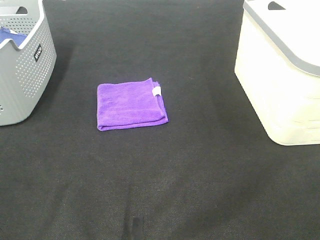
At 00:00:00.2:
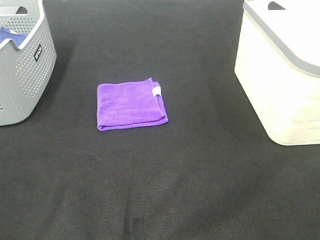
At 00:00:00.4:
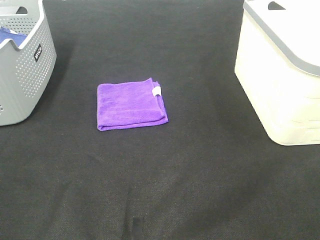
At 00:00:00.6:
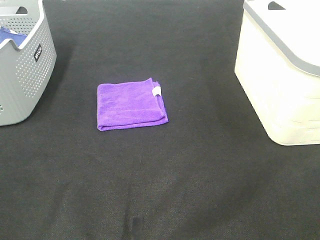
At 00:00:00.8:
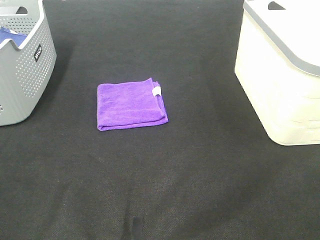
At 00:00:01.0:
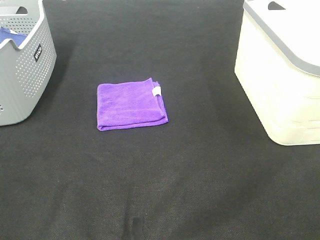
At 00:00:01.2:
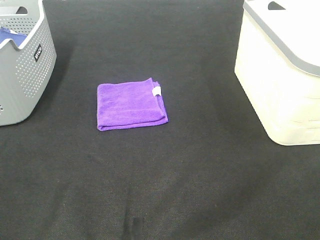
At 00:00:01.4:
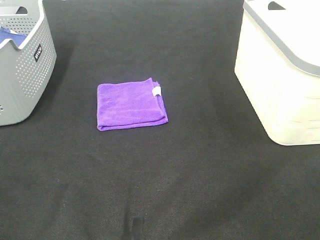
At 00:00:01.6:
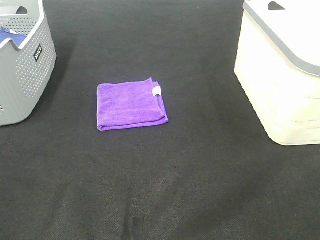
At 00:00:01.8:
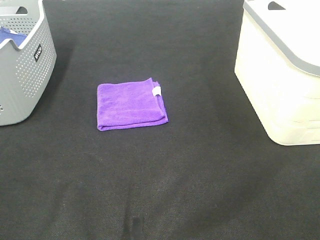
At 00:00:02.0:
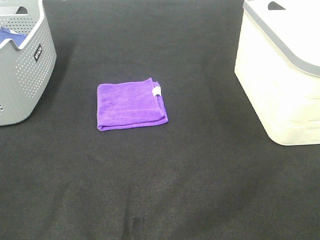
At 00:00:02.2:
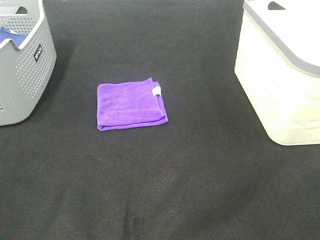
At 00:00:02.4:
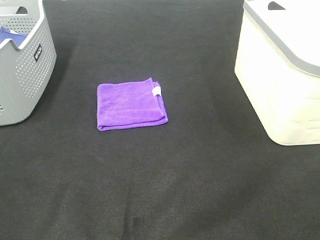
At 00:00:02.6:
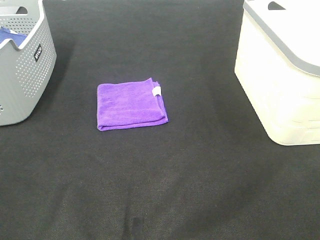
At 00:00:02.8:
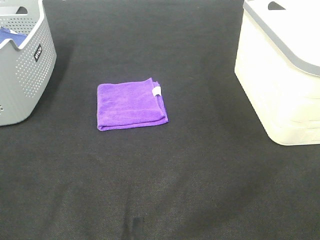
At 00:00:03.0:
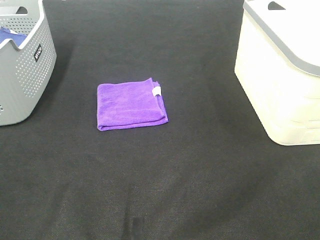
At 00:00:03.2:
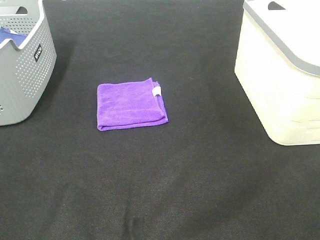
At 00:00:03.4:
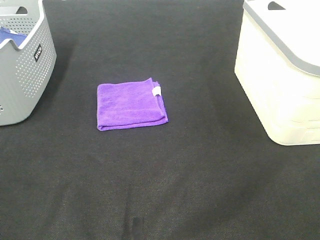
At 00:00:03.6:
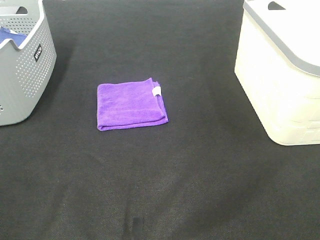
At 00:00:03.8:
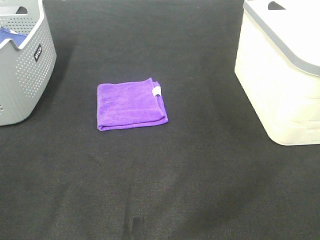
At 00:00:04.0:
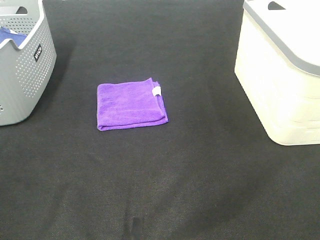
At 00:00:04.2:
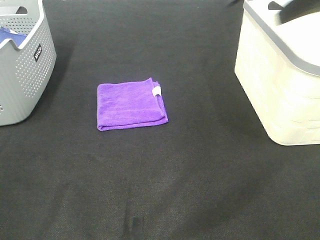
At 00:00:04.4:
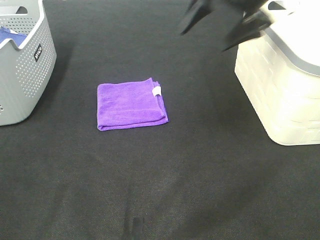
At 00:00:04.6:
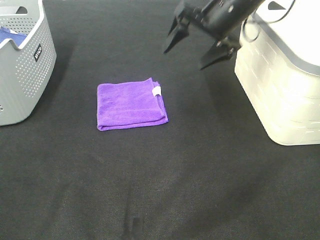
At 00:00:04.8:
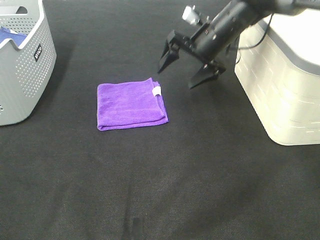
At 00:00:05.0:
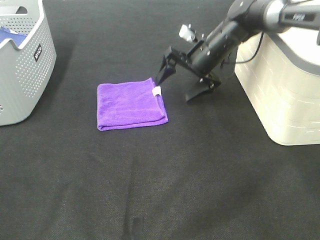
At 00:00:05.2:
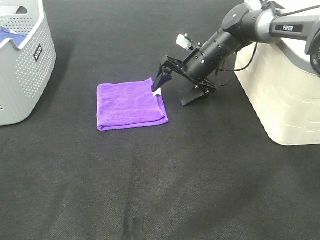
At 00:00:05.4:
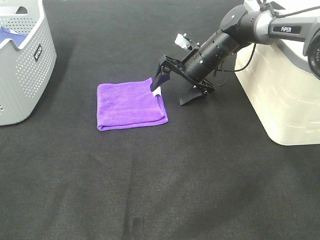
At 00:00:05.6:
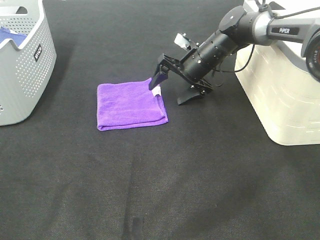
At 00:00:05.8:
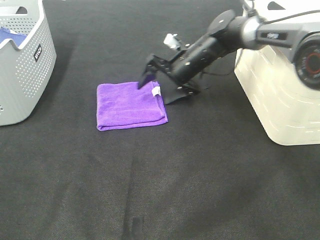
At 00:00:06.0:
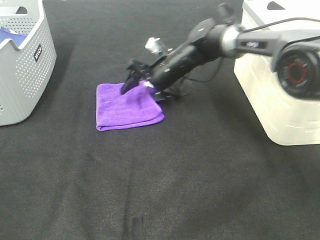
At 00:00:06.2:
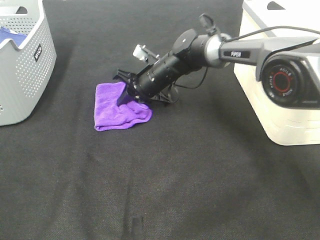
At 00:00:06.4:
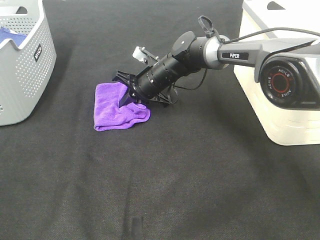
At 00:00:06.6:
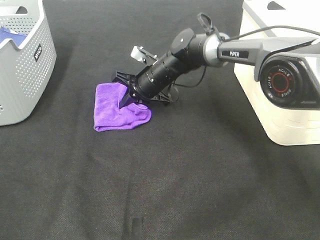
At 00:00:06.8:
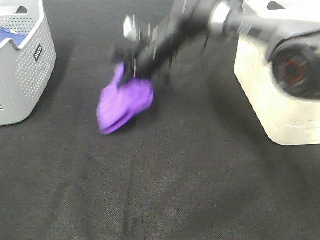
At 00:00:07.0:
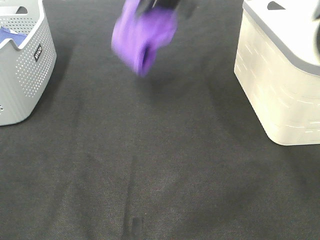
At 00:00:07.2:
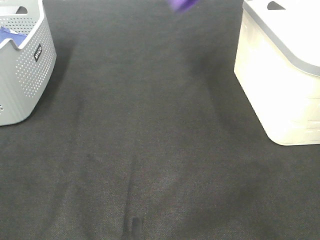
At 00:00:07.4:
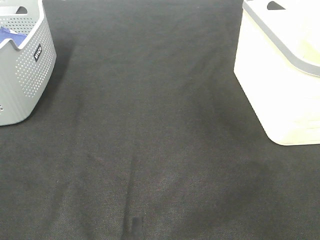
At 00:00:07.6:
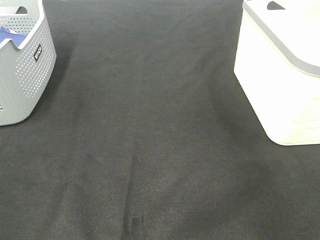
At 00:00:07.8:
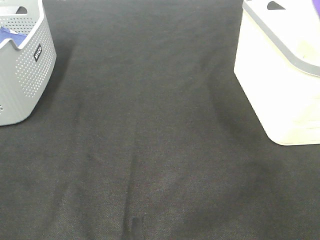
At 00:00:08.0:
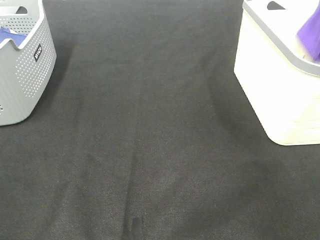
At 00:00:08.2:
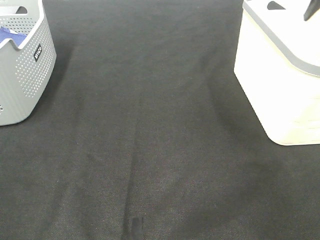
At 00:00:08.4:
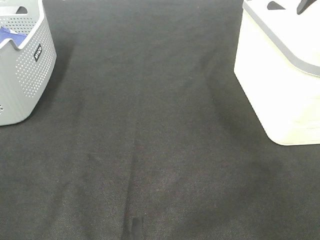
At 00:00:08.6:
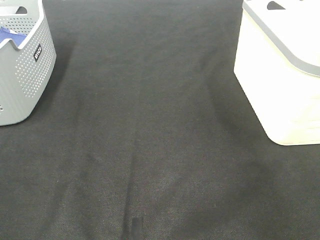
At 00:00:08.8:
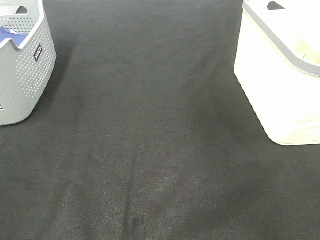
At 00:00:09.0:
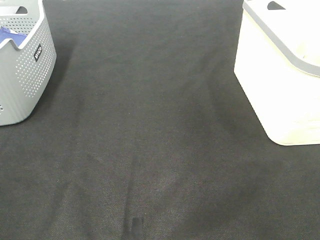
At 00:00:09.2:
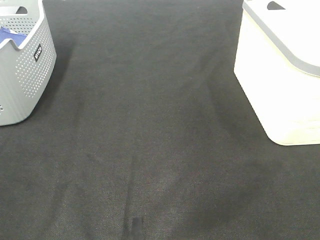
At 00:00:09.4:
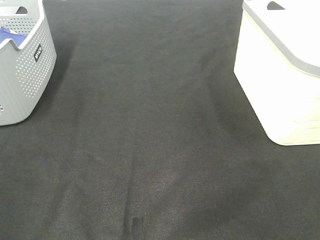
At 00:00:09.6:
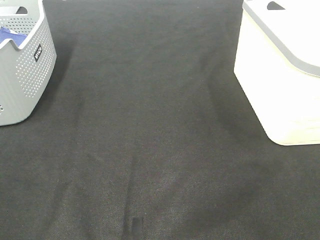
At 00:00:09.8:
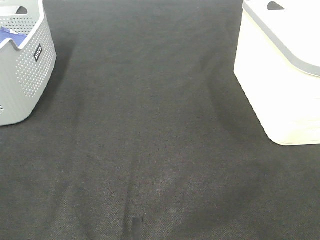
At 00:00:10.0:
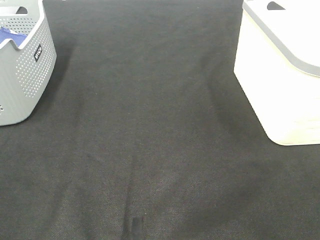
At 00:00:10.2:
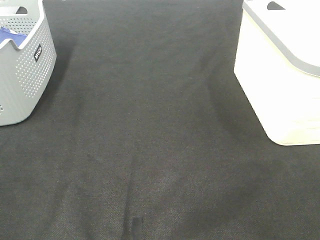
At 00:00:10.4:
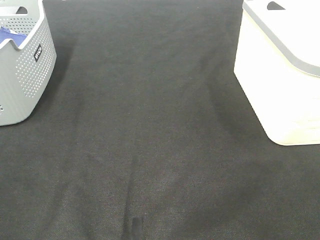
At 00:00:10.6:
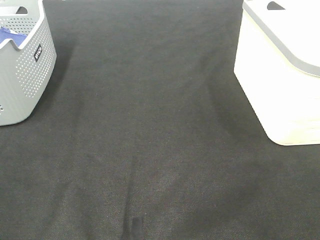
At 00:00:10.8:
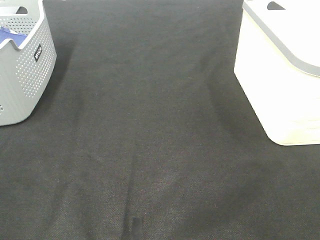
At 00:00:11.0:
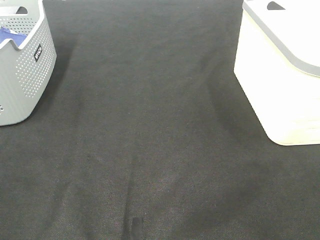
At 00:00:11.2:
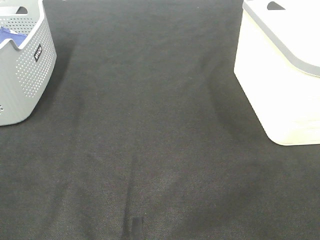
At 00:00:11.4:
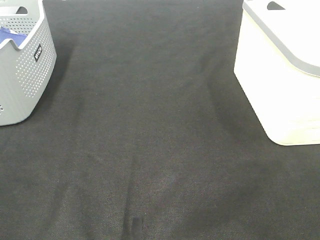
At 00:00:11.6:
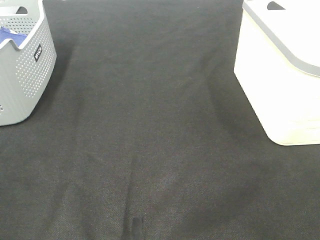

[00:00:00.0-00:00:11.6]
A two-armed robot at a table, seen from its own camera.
Step, 00:00:00.0 to 00:00:06.2: Right hand: grab the folded purple towel.
Step, 00:00:06.4 to 00:00:08.0: Right hand: place the purple towel in right basket.
00:00:00.0 to 00:00:02.8: Neither gripper changes place.
00:00:02.8 to 00:00:04.4: The right gripper is displaced forward by approximately 40 cm.
00:00:04.4 to 00:00:05.8: The right gripper goes approximately 20 cm downward and to the left.
00:00:05.8 to 00:00:07.2: The right gripper is displaced upward by some 35 cm, and closes.
00:00:07.2 to 00:00:08.8: The right gripper is displaced to the right by some 10 cm, and opens.

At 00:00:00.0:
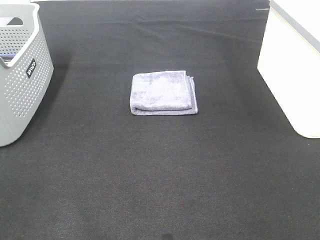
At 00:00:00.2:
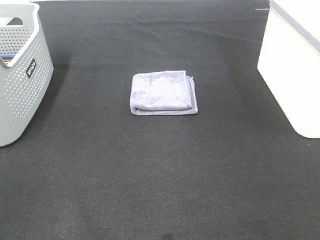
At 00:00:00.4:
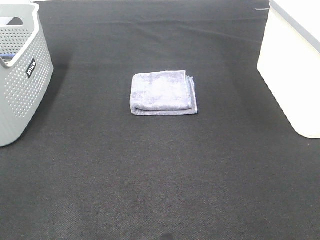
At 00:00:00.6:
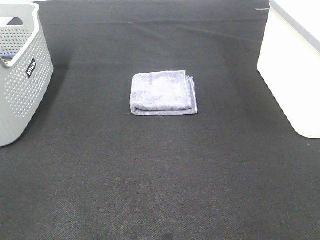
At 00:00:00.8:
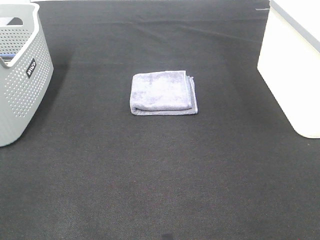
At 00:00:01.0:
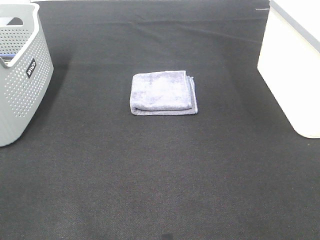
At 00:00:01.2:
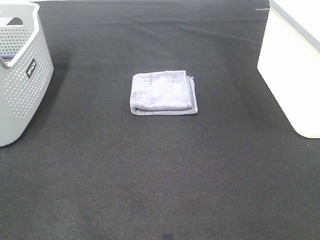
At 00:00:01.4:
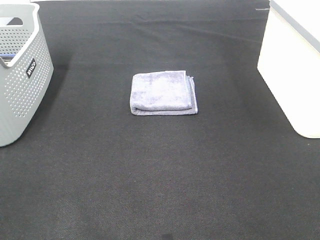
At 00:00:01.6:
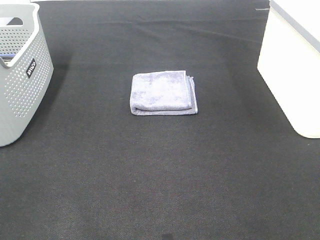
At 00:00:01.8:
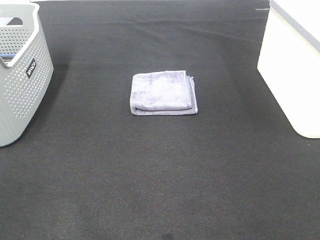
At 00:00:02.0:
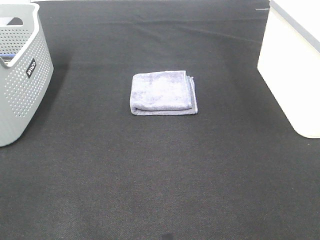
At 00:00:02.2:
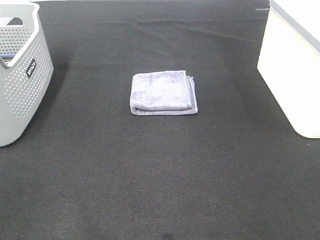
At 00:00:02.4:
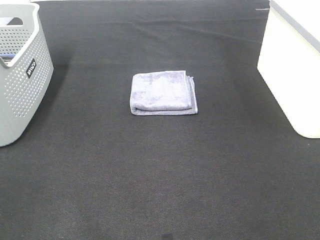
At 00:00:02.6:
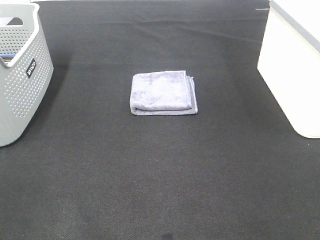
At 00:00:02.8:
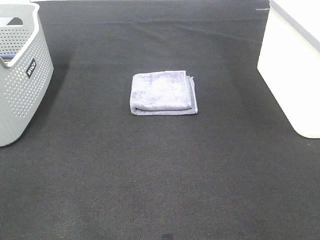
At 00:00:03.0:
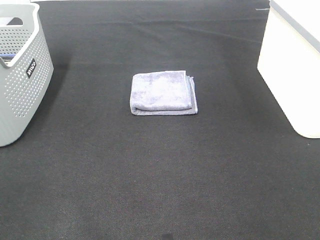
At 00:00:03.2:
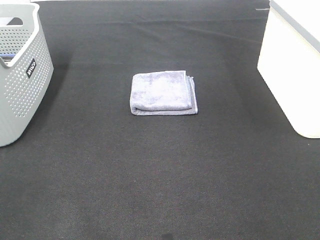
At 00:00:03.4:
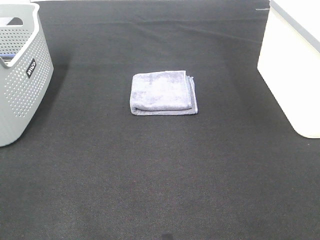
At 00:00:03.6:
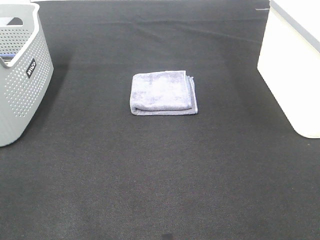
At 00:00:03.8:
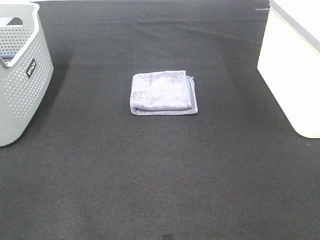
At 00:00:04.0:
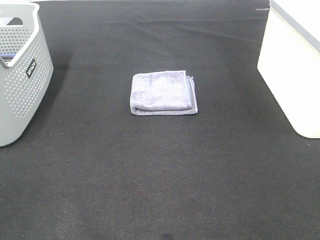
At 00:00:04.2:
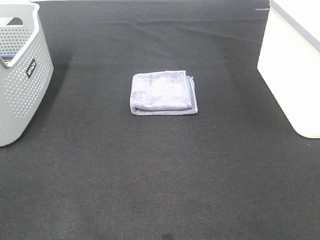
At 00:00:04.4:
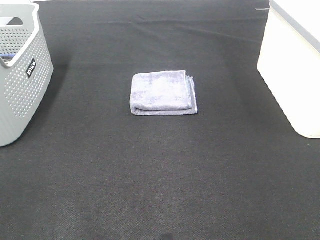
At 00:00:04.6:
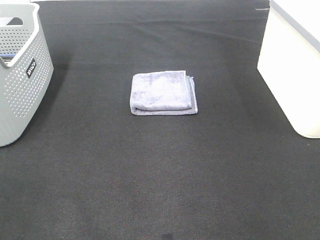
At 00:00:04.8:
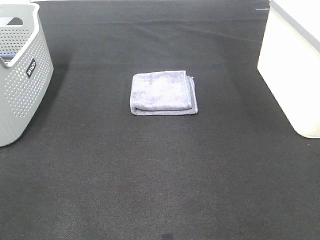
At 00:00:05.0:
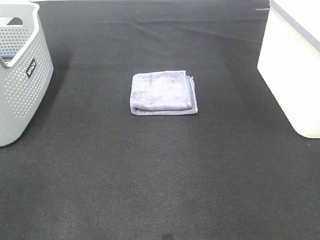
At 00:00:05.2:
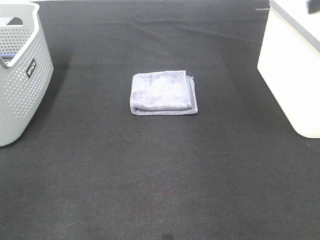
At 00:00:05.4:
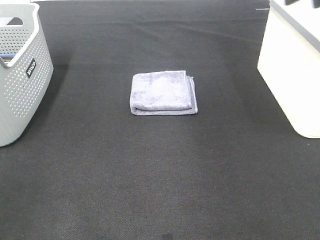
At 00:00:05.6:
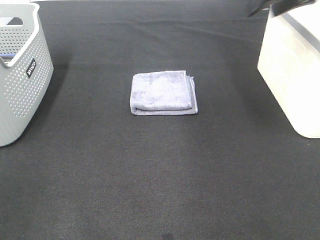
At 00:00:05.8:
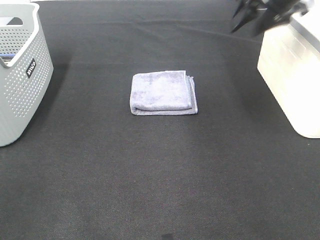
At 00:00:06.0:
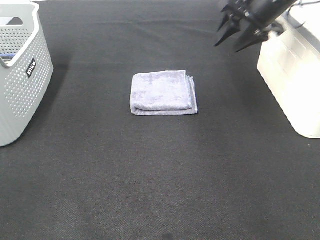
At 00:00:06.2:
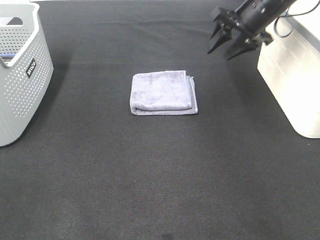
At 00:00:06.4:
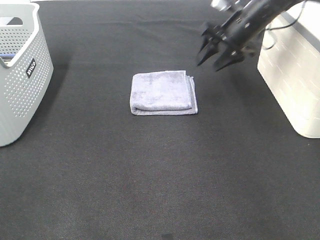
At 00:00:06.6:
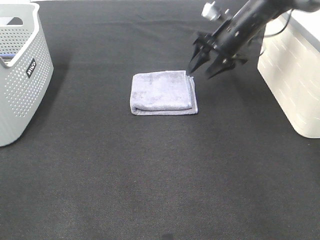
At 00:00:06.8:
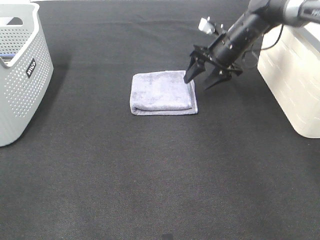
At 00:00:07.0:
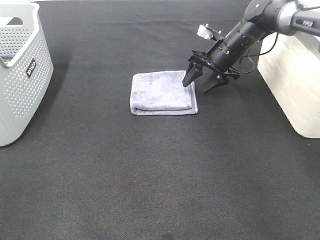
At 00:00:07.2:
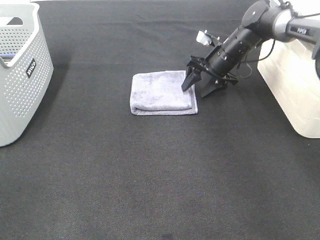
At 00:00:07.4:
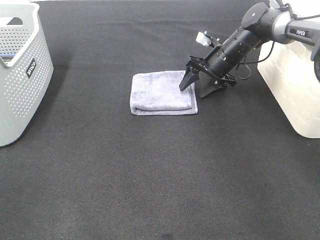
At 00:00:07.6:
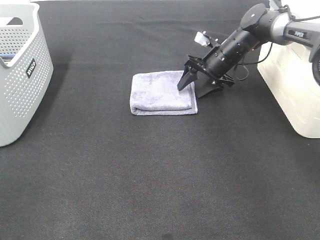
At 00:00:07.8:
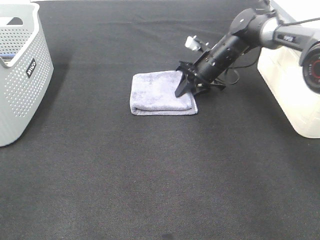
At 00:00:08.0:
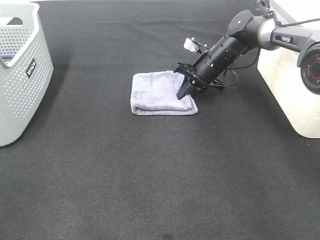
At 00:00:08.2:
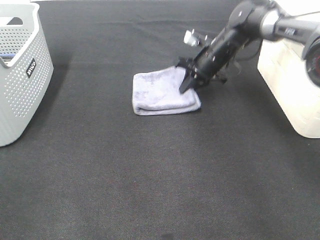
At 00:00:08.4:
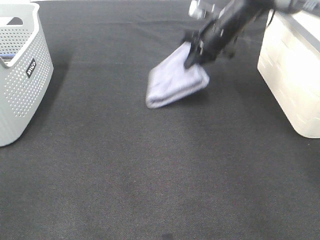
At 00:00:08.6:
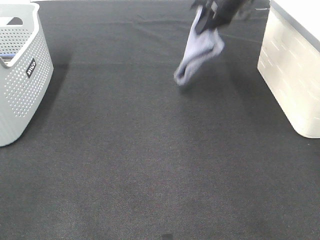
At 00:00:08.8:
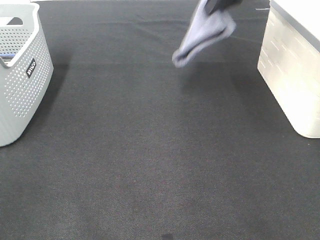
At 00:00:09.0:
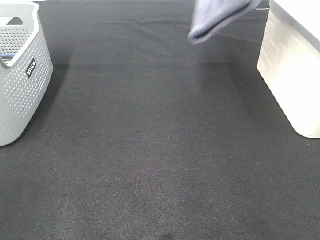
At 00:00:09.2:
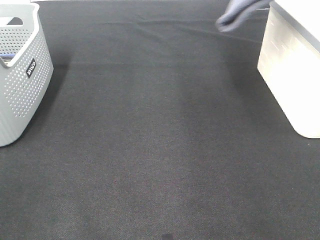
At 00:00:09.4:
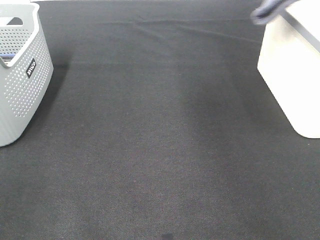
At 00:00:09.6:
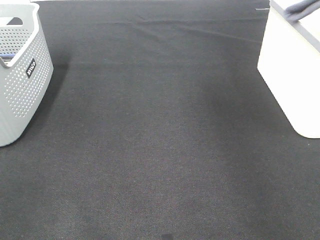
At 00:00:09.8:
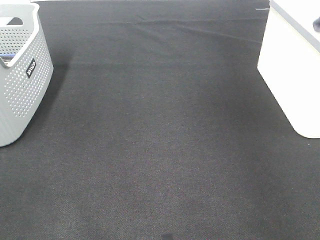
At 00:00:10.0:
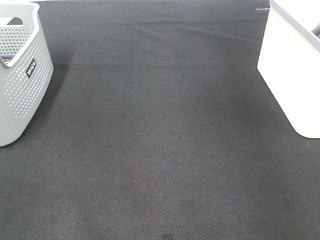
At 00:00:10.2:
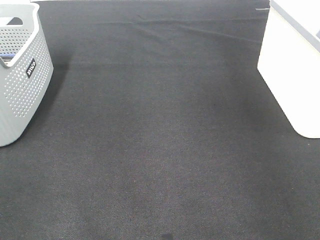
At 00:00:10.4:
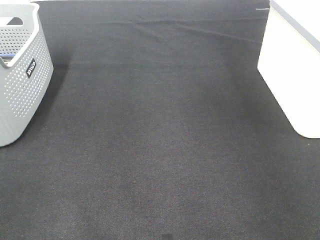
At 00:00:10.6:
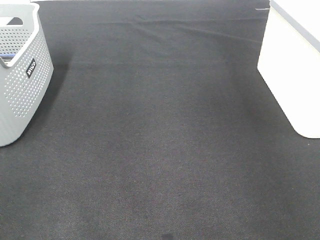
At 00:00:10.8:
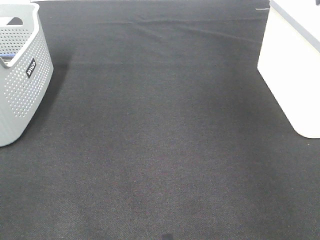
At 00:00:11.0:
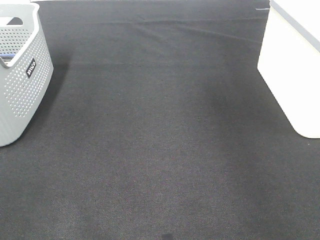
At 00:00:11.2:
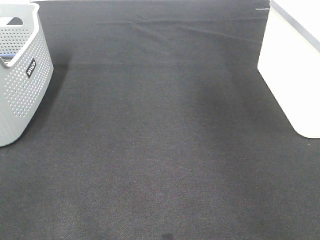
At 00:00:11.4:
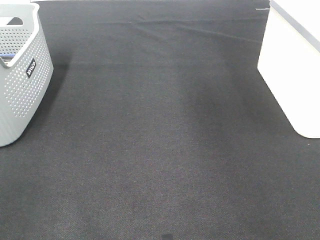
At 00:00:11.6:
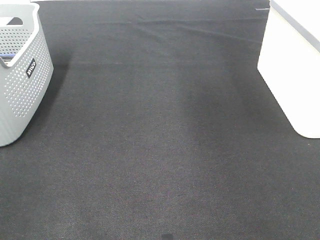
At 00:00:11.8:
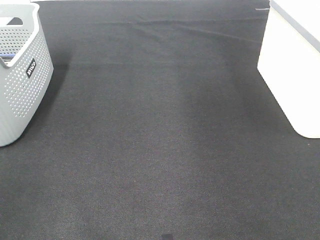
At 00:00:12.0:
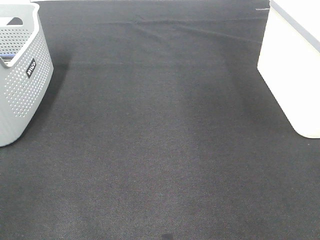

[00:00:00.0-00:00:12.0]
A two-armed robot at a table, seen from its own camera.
Step, 00:00:00.0 to 00:00:08.0: Right hand: grab the folded grey towel.
Step, 00:00:08.2 to 00:00:10.4: Right hand: place the grey towel in right basket.
00:00:00.0 to 00:00:03.0: Both grippers stay put.
00:00:04.4 to 00:00:06.0: The right gripper shifts some 40 cm forward.
00:00:06.0 to 00:00:07.6: The right gripper shifts some 15 cm downward.
00:00:07.6 to 00:00:09.0: The right gripper is displaced upward by approximately 30 cm, and closes.
00:00:09.0 to 00:00:10.4: The right gripper shifts some 20 cm to the right, and opens its fingers.
